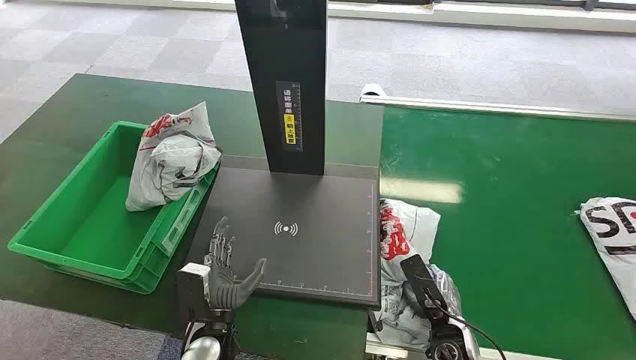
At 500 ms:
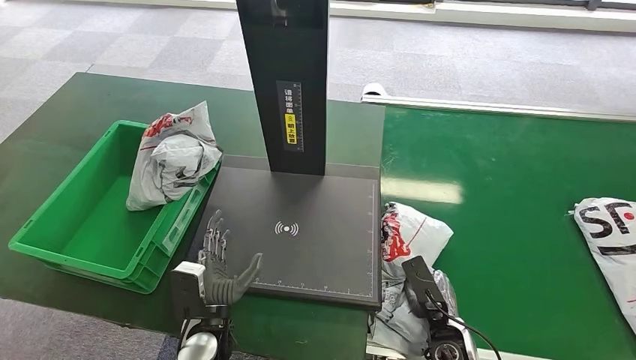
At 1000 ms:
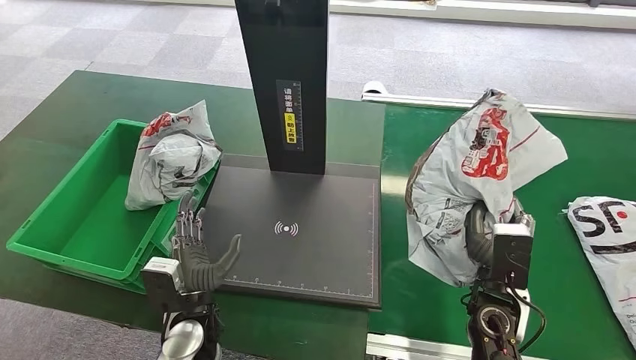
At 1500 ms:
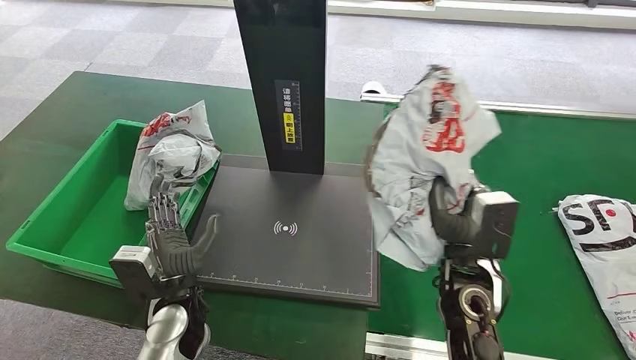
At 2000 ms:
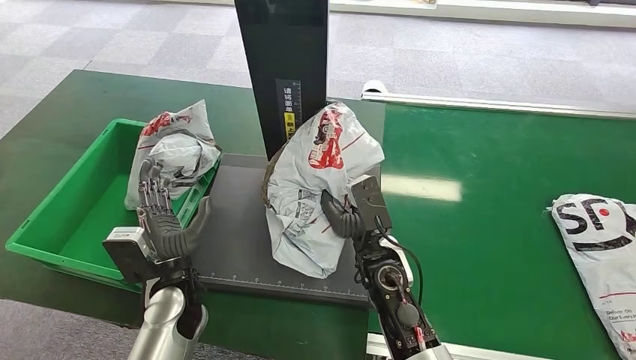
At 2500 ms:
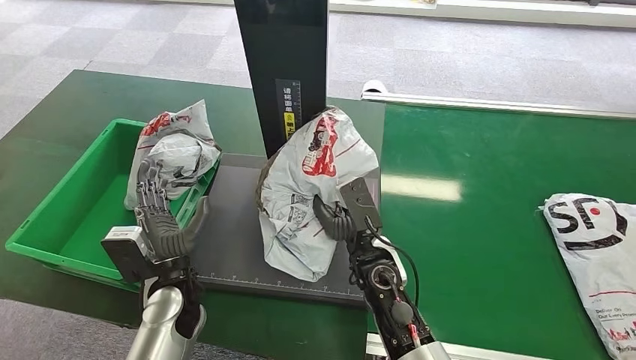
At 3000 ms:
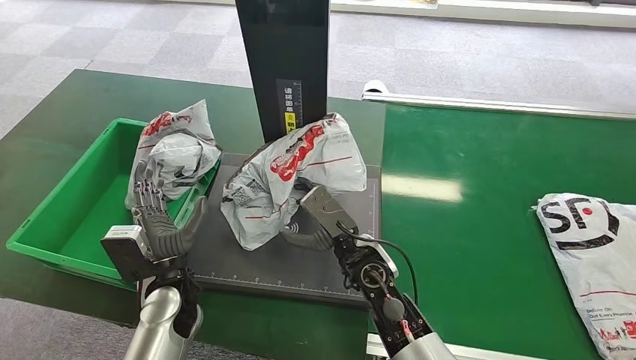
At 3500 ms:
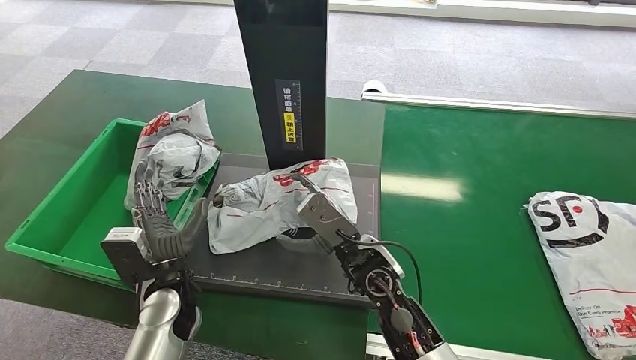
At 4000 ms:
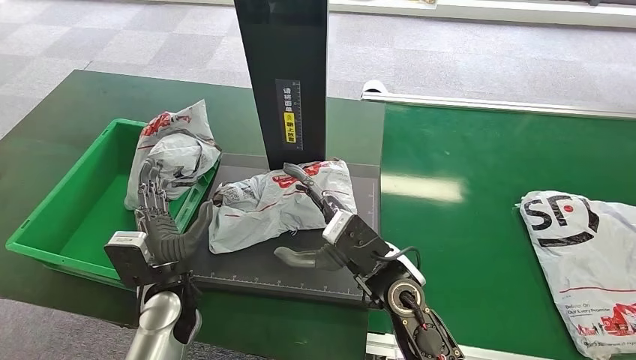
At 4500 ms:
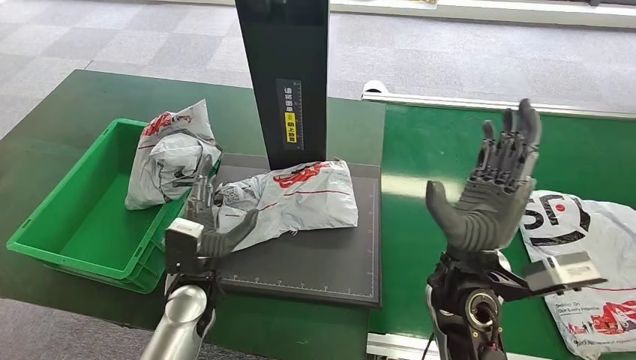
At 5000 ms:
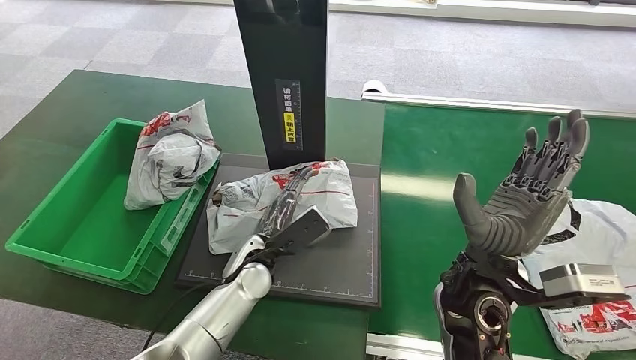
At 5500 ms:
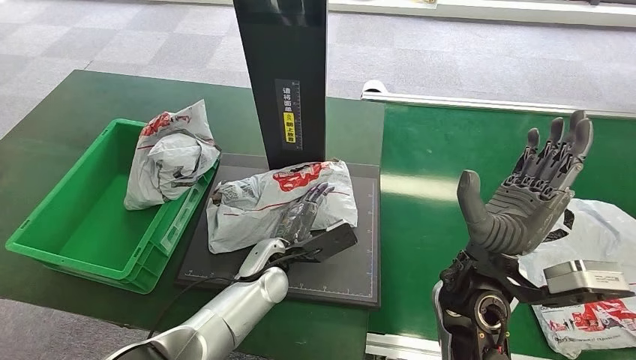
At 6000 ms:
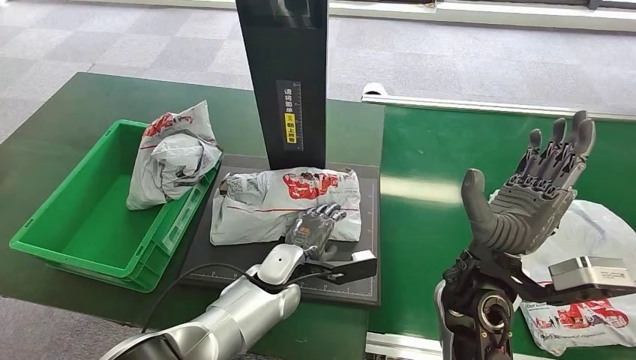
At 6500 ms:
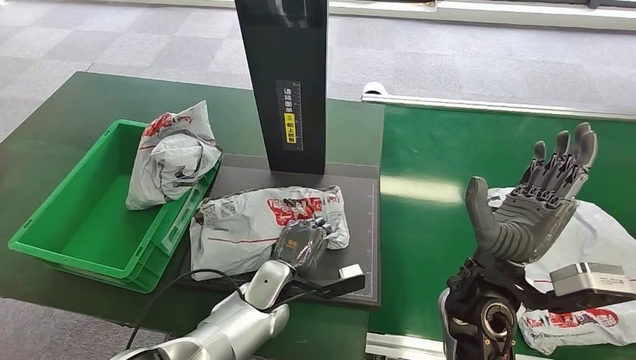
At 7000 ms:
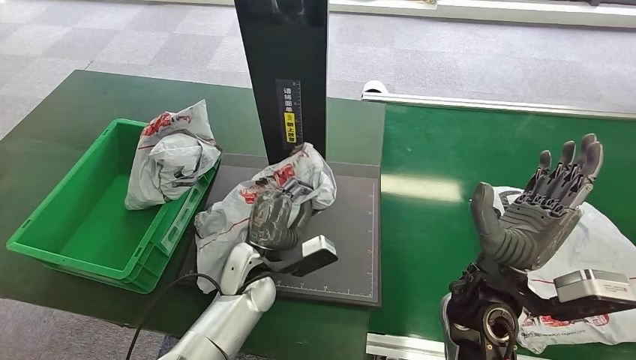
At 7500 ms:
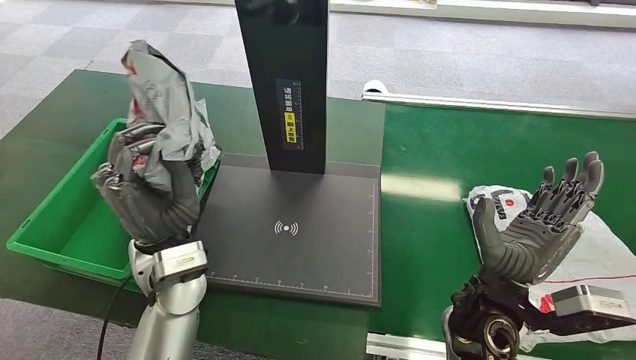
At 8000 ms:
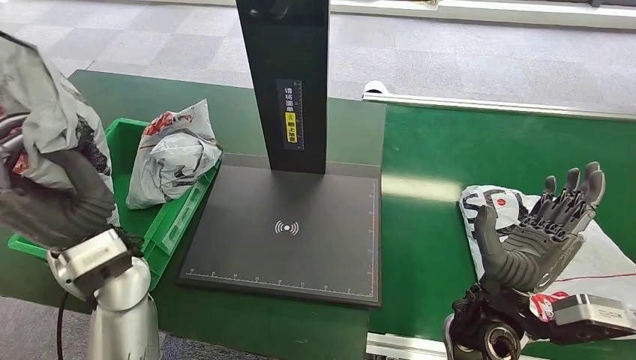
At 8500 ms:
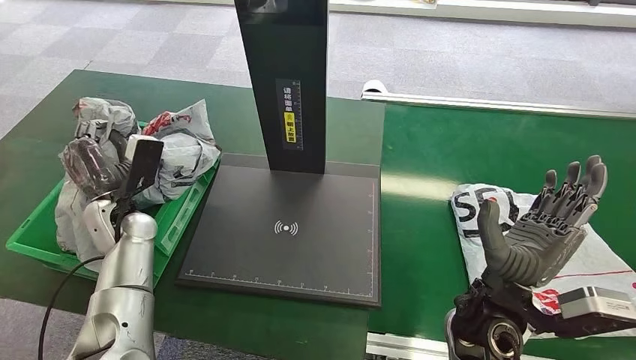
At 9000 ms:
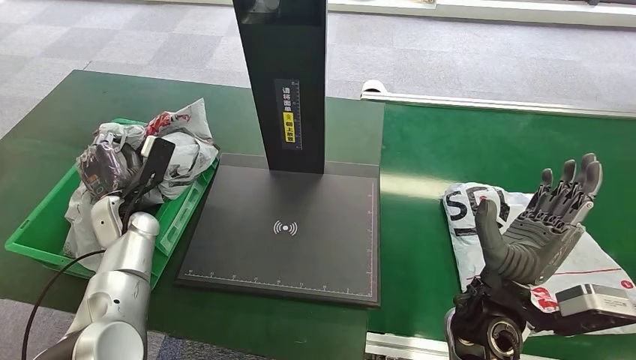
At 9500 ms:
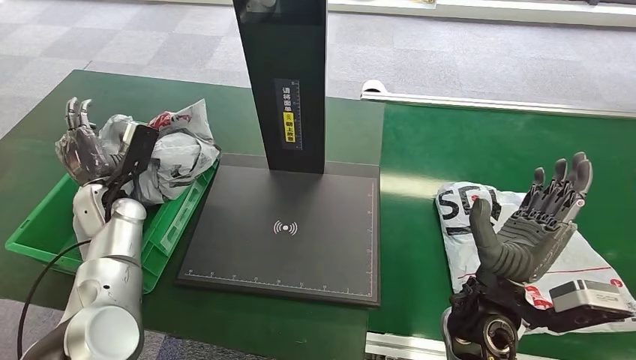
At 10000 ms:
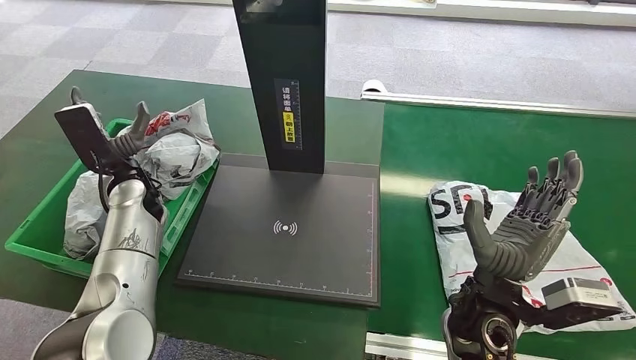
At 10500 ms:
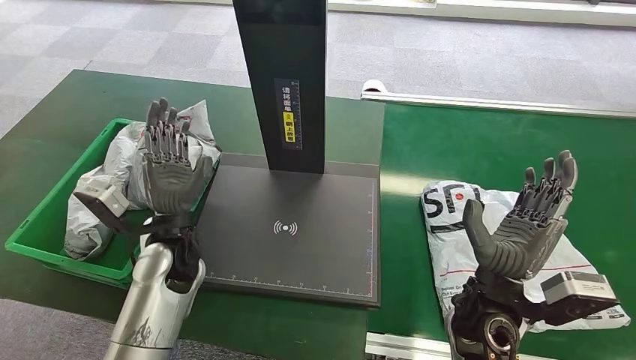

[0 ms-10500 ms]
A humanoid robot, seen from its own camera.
Task of the whole recording: Weigh the package on the weighing device and place it in the left basket.
Step, 0 ms to 1000 ms: Pick up the package from the conveyor belt.
Step, 1500 ms to 4000 ms: Place the package onto the inbound machine.
Step, 4500 ms to 7500 ms: Pick up the package from the inbound machine.
Step, 8000 ms to 10500 ms: Place the package into the parcel locker.
2000 ms to 4000 ms: The right hand moves upward, roughly 5 cm.

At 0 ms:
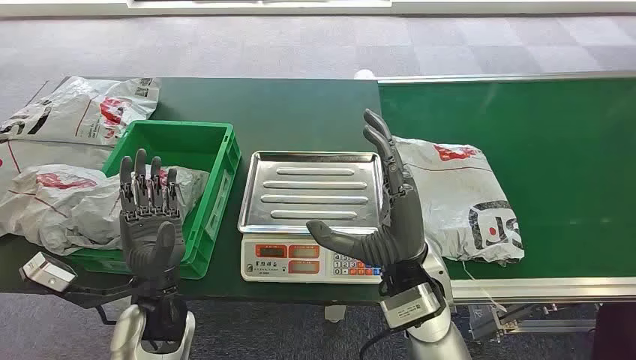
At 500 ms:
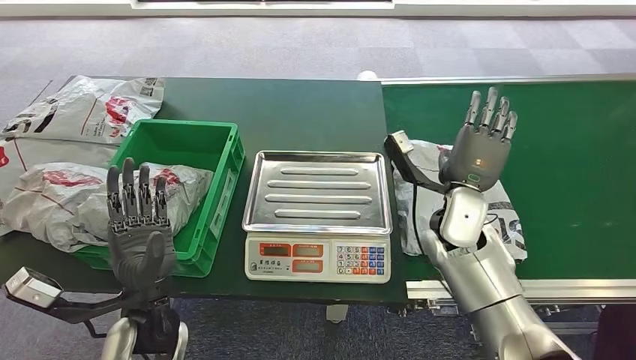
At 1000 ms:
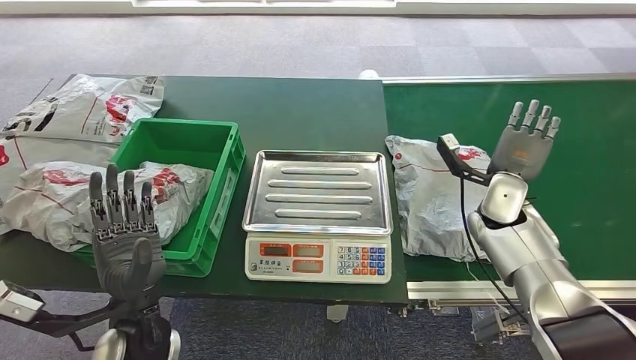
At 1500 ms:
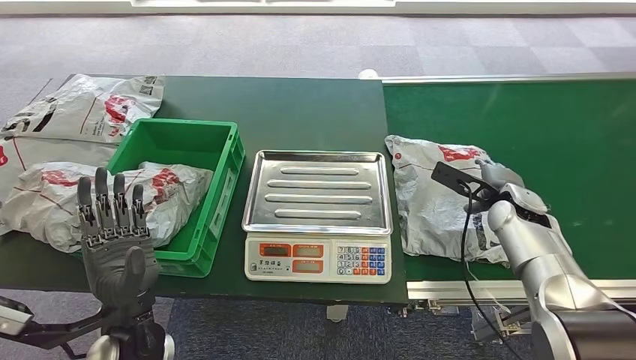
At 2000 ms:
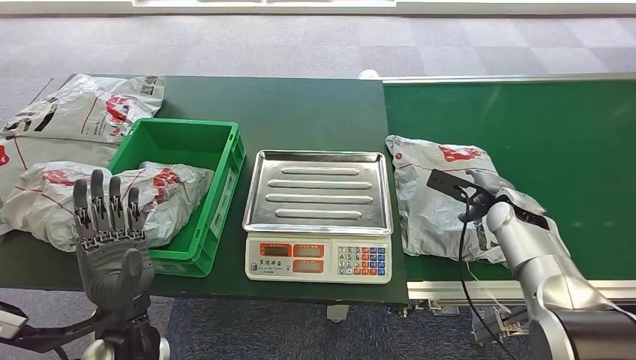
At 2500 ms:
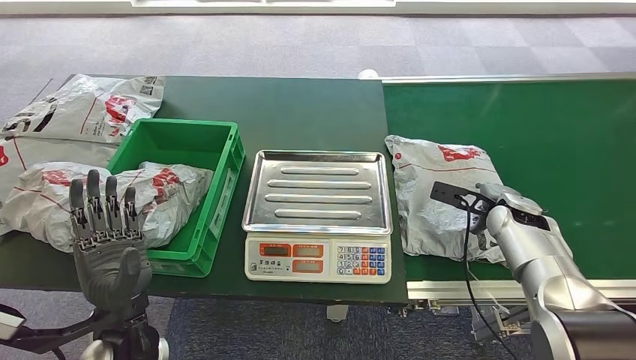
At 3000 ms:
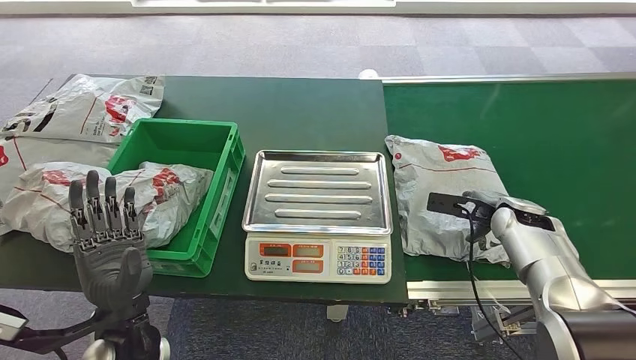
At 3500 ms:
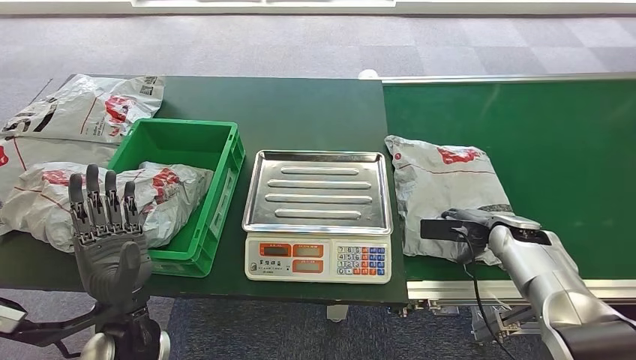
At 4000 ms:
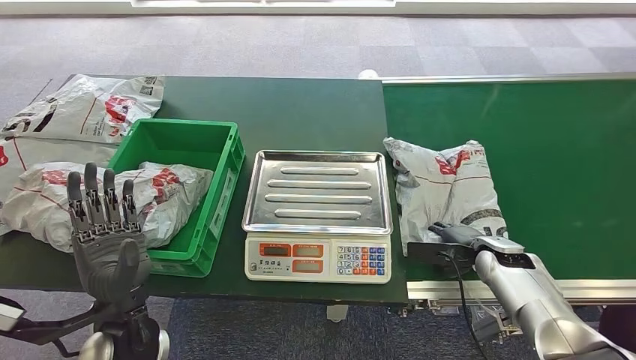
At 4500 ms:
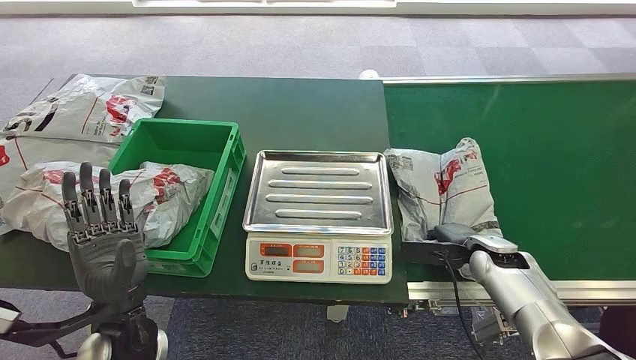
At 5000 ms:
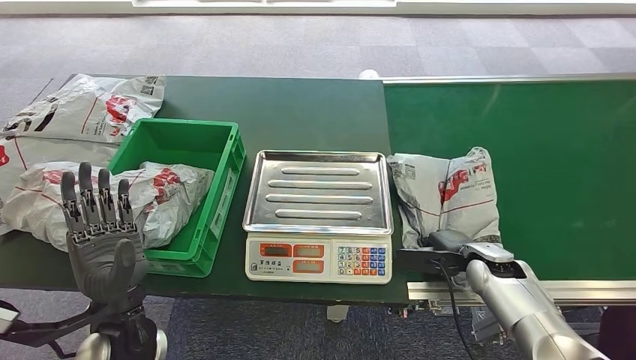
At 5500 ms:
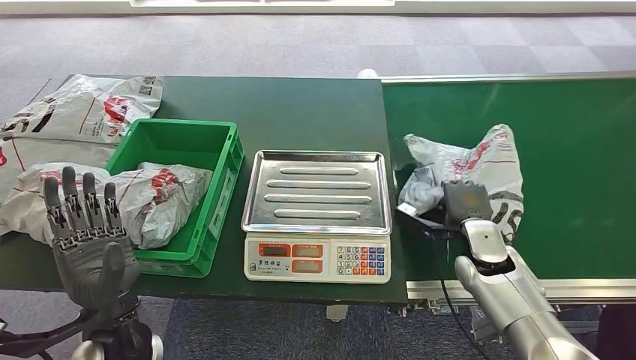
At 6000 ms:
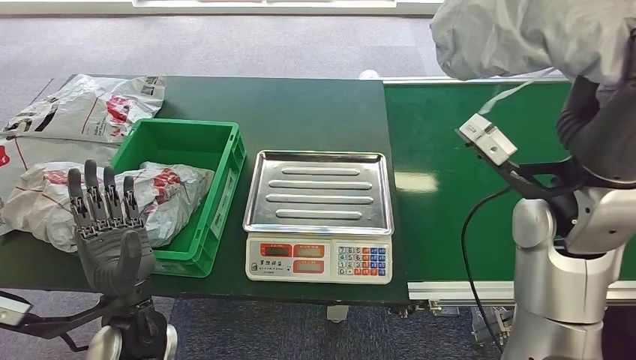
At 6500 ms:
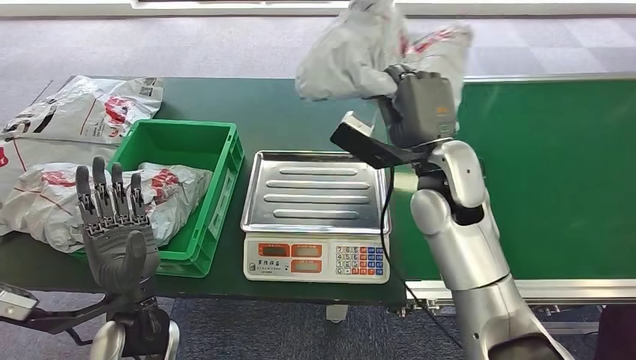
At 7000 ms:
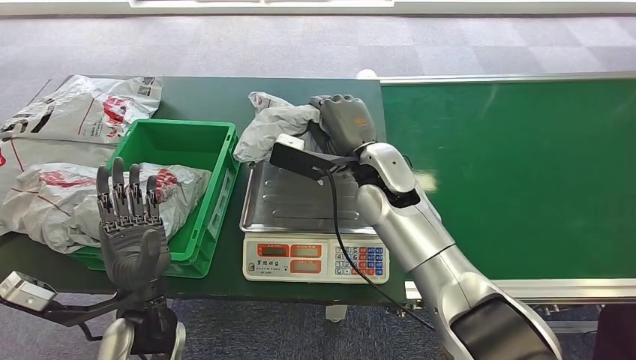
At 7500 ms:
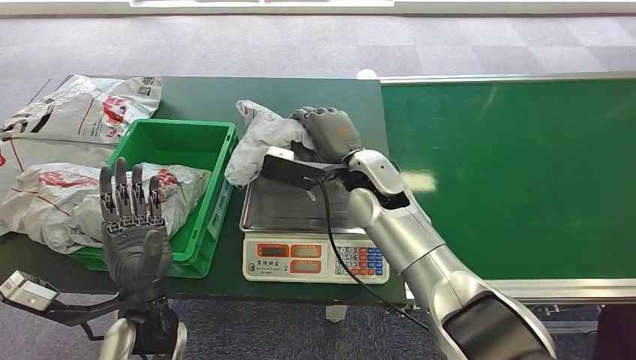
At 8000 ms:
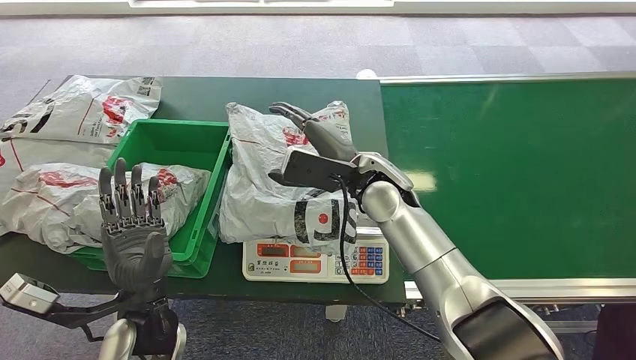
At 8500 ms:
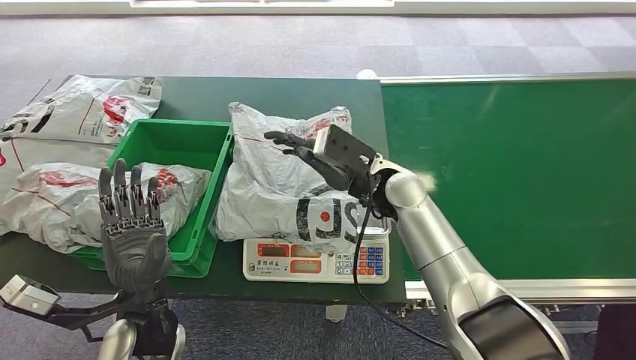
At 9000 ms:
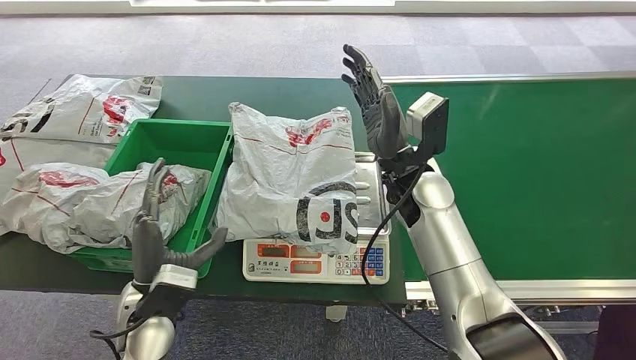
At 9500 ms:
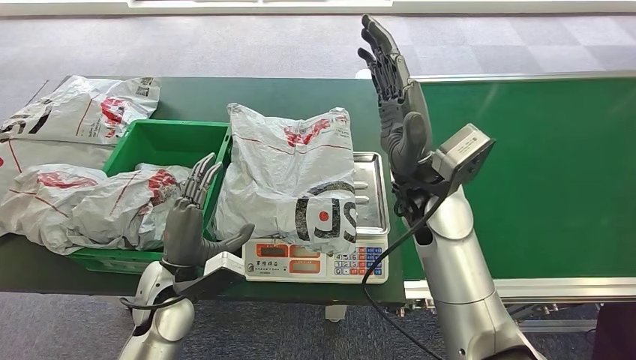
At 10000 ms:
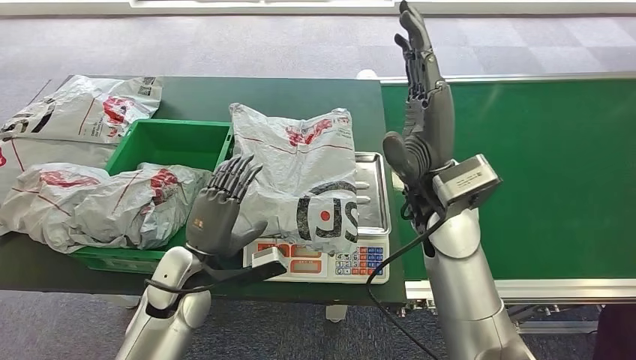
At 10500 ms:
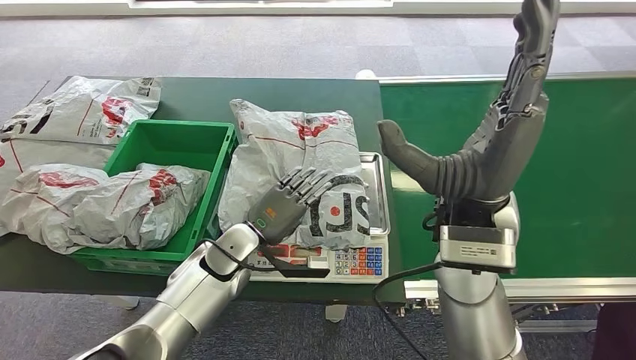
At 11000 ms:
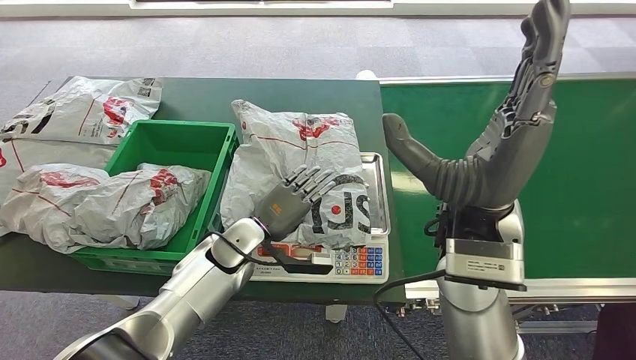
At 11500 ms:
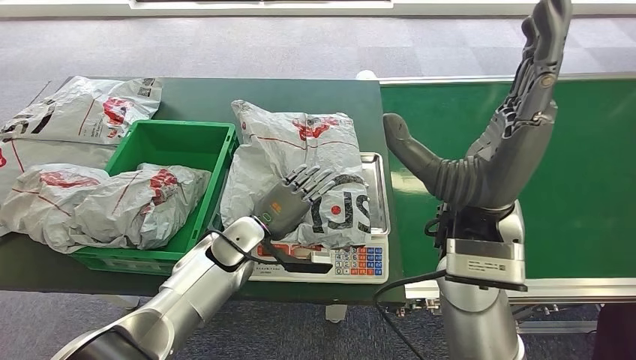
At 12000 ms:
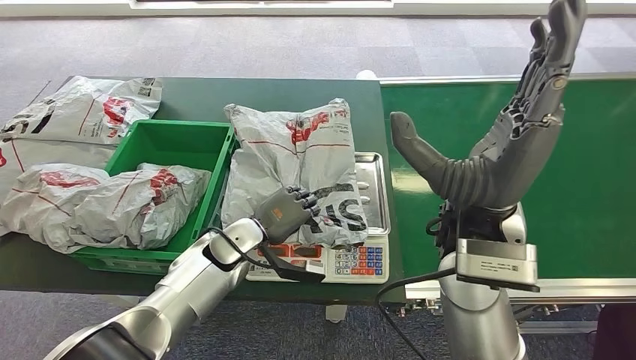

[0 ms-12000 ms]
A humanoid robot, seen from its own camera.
Task of the whole recording: Weigh the package on the weighing device and place it in the left basket.
Step, 0 ms to 6000 ms: Pick up the package from the conveyor belt.
Step, 6500 ms to 8500 ms: Place the package onto the inbound machine.
2000 ms to 4000 ms: The right hand shifts about 10 cm downward and backward.
